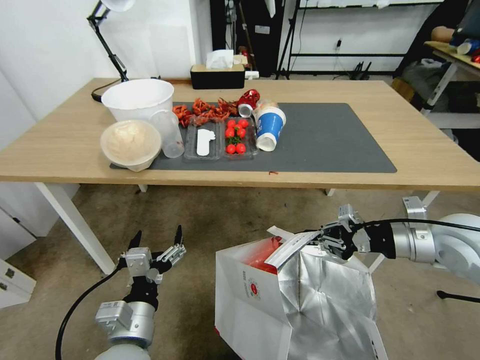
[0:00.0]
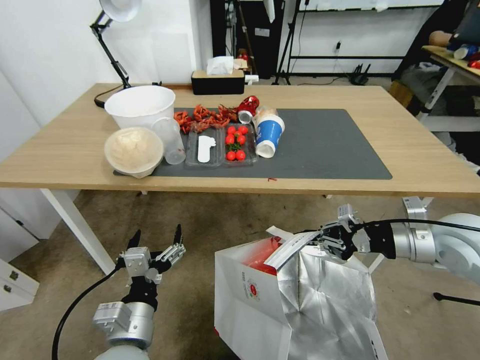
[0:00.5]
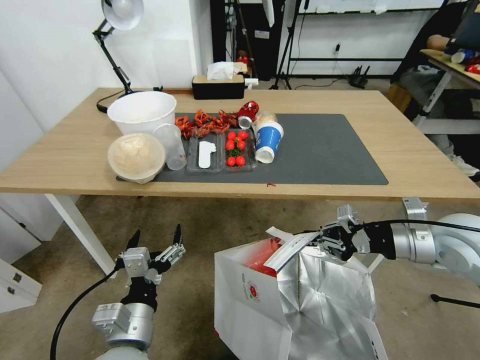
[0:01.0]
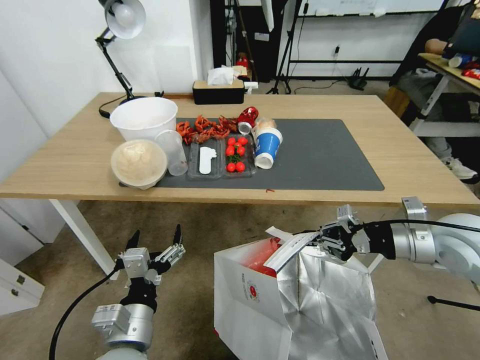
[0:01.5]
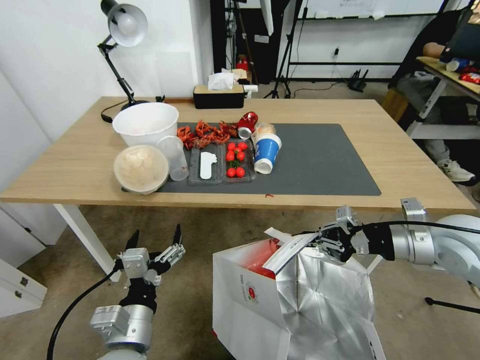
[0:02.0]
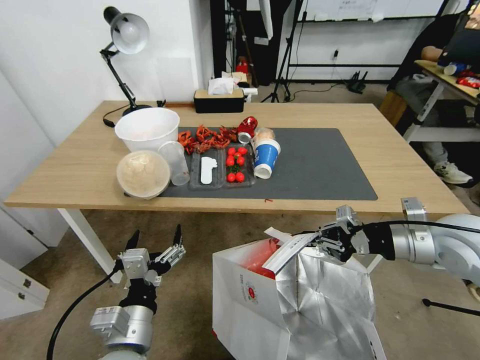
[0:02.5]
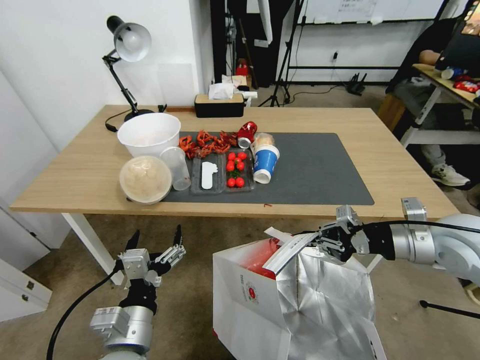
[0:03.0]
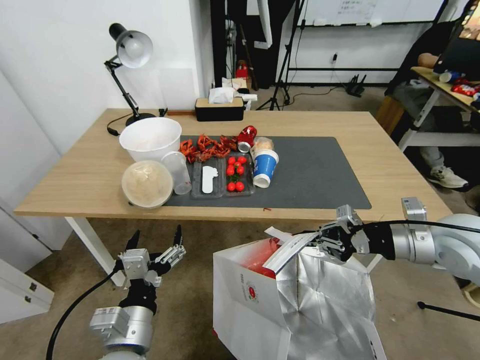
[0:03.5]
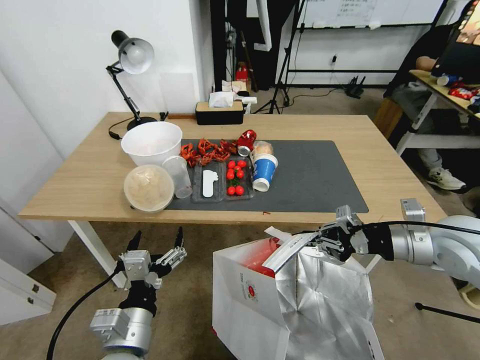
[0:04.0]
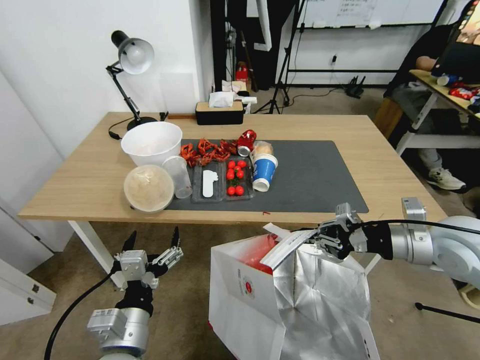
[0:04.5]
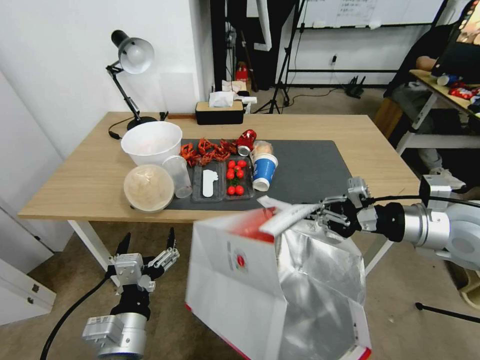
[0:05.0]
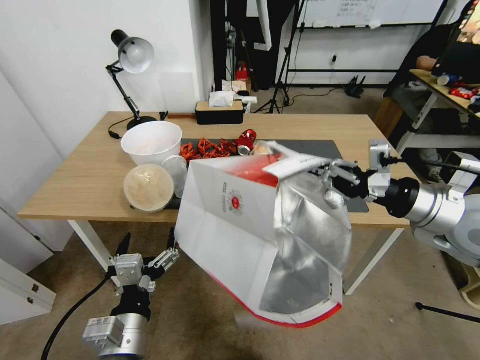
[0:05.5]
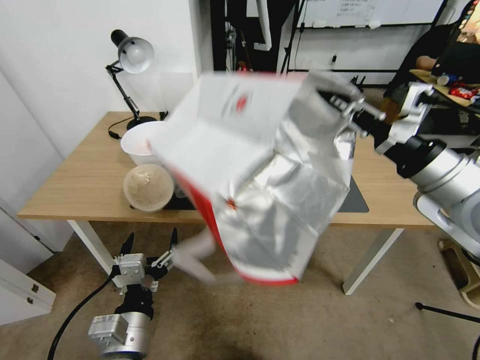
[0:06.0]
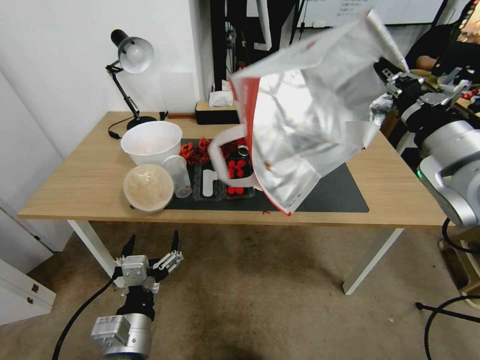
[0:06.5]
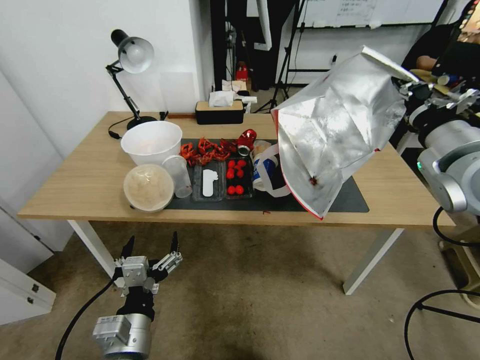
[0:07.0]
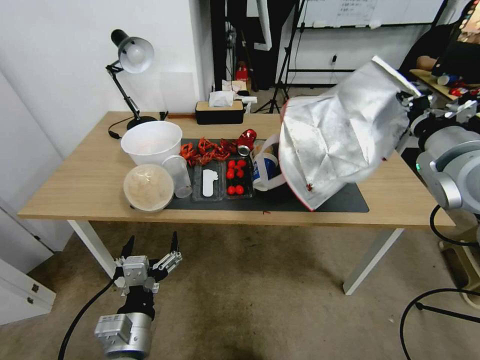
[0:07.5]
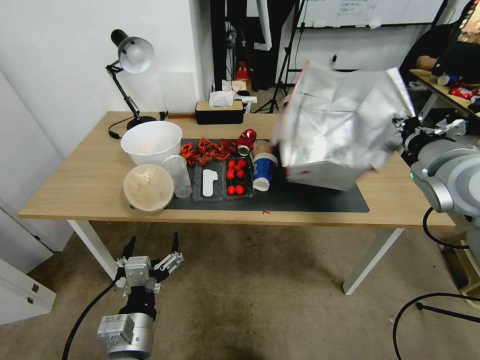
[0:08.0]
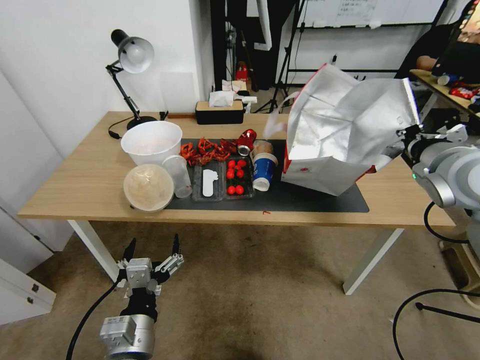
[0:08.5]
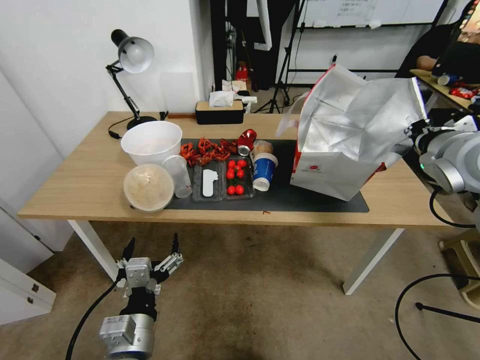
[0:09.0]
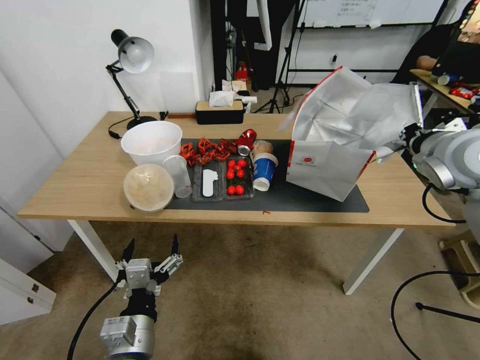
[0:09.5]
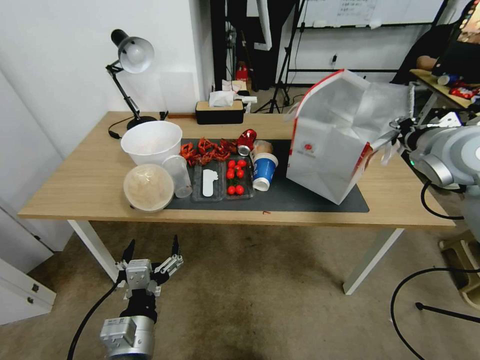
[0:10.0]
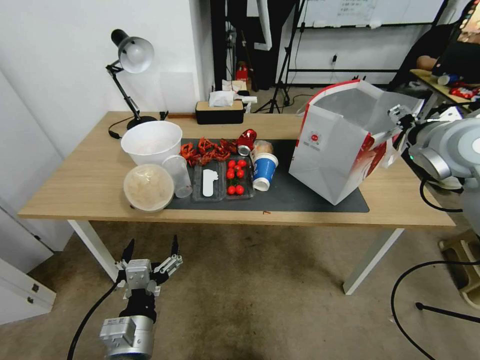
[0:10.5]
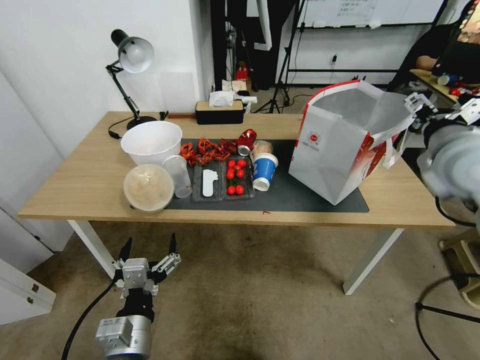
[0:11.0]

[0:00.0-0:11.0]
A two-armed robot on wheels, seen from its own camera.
Task of the whole recording: Pick up the food delivery bag from the floor and place it on the table.
0:03.5 to 0:05.5: The right gripper goes roughly 5 cm upward.
0:05.5 to 0:07.5: The right gripper is displaced upward by about 5 cm.
0:09.0 to 0:11.0: The right gripper opens up.

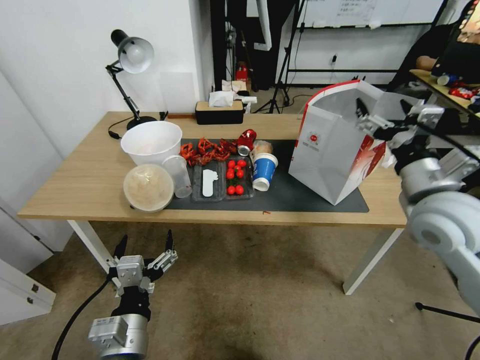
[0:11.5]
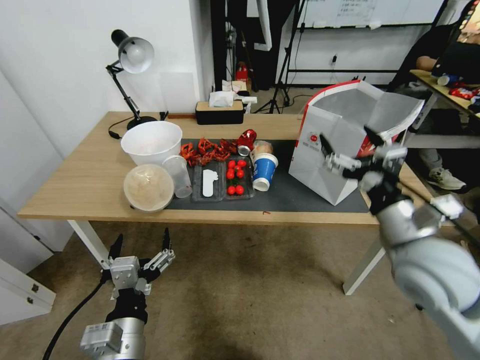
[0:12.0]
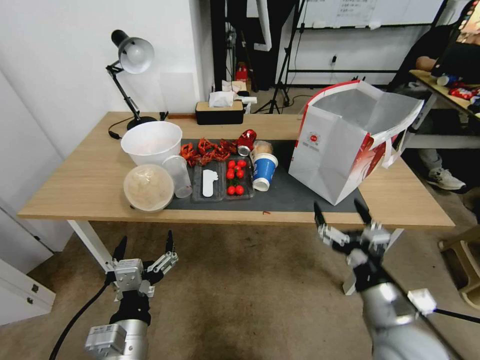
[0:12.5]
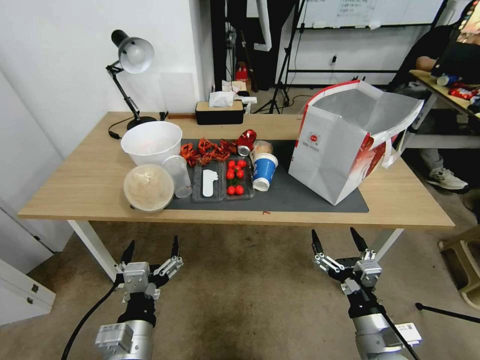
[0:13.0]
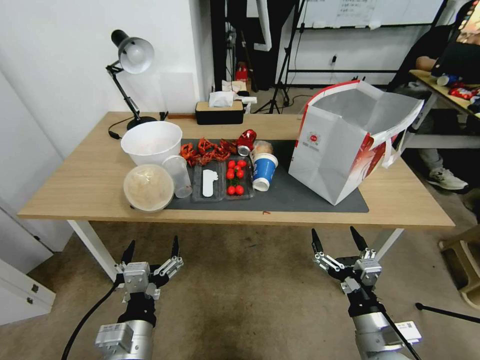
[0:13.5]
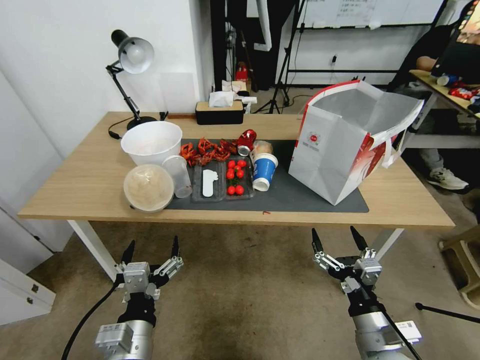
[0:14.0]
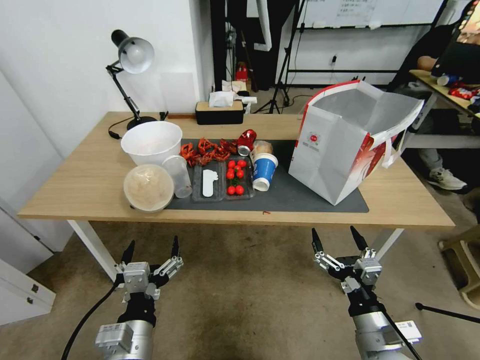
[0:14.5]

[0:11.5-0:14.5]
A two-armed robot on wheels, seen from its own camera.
Task of the whole recording: Pick up the food delivery bag from the floor and place it on the table.
0:11.5 to 0:13.0: The right gripper heads downward and backward, covering about 30 cm.
0:13.0 to 0:14.5: Both grippers stay put.

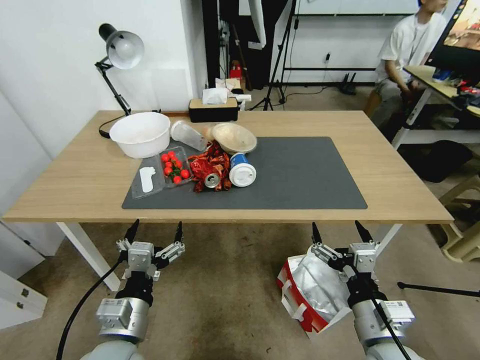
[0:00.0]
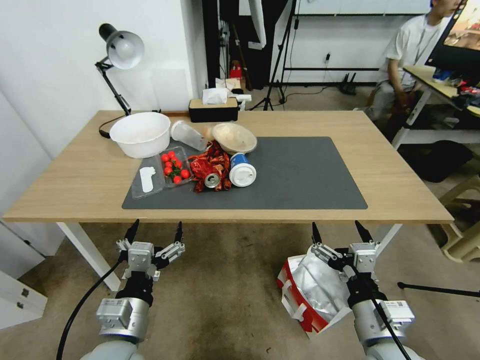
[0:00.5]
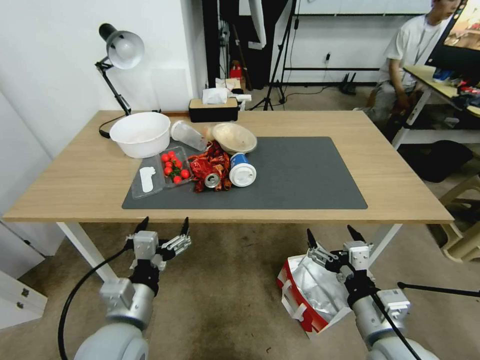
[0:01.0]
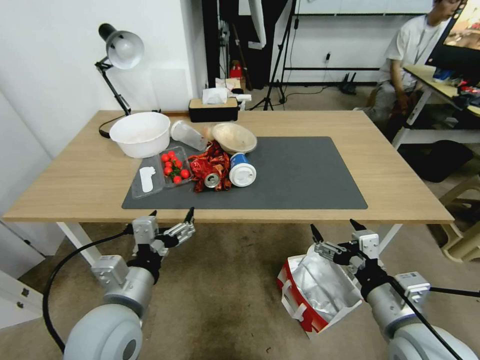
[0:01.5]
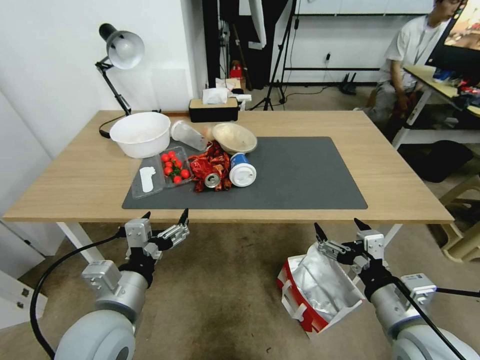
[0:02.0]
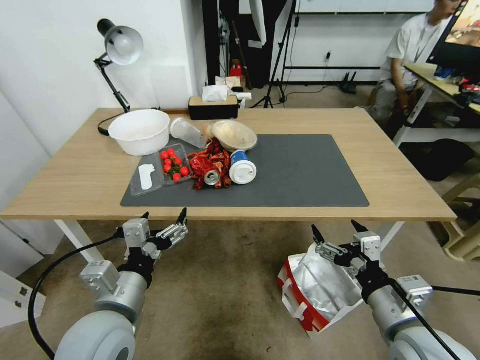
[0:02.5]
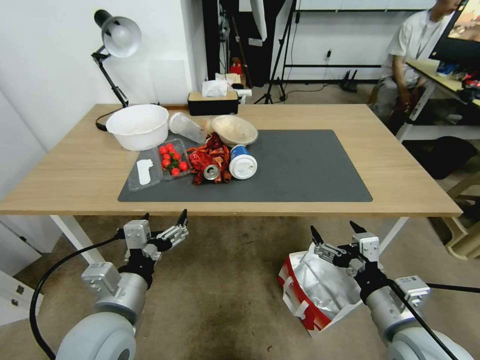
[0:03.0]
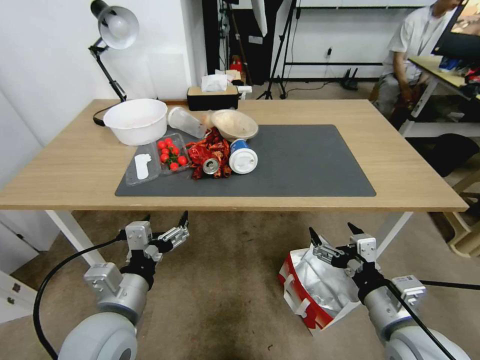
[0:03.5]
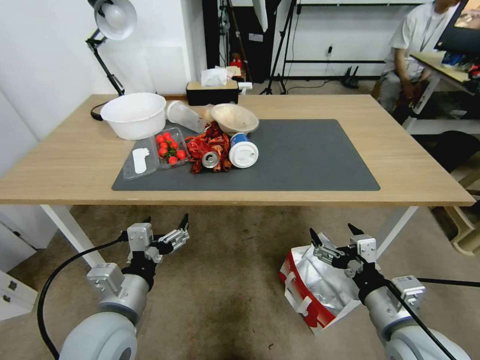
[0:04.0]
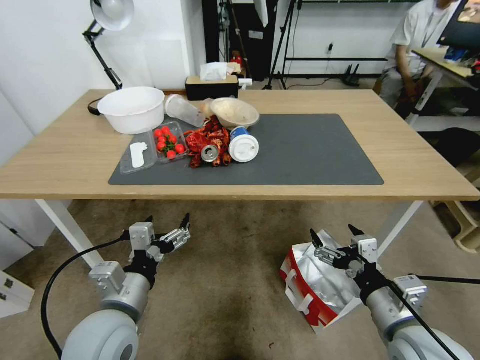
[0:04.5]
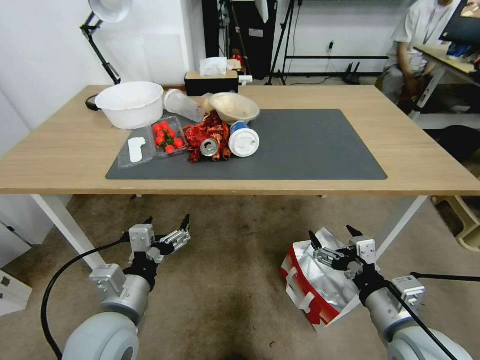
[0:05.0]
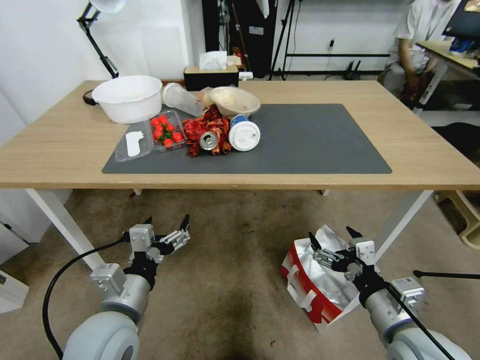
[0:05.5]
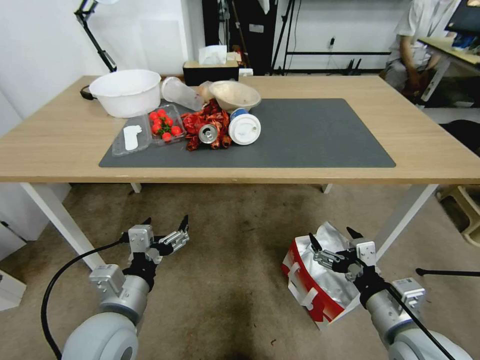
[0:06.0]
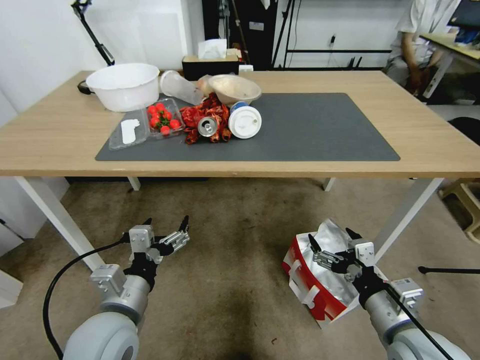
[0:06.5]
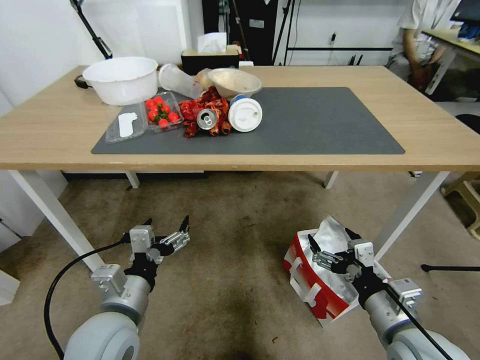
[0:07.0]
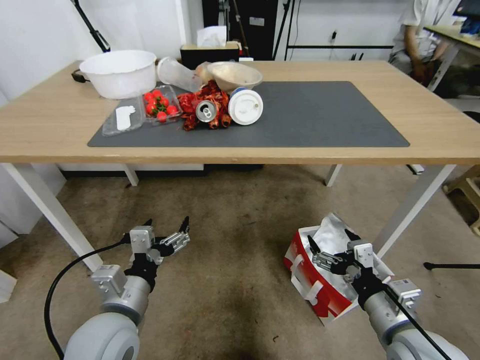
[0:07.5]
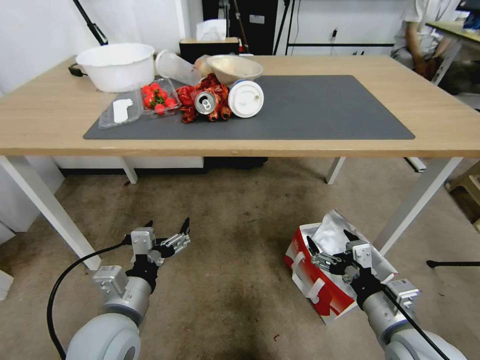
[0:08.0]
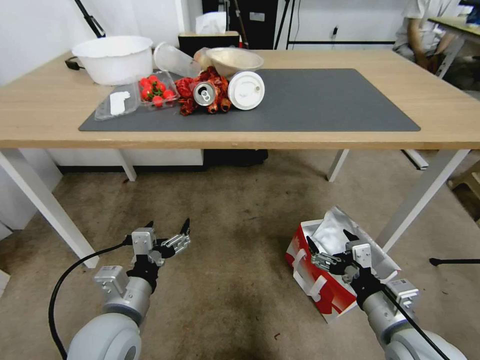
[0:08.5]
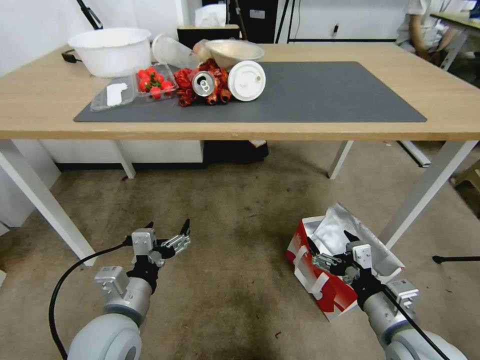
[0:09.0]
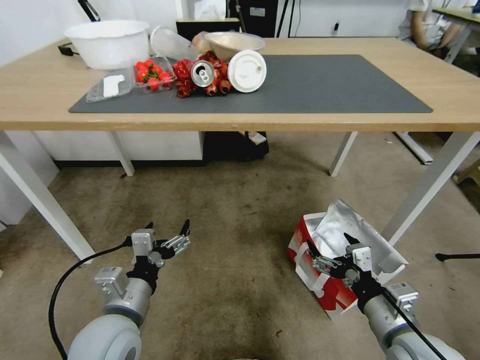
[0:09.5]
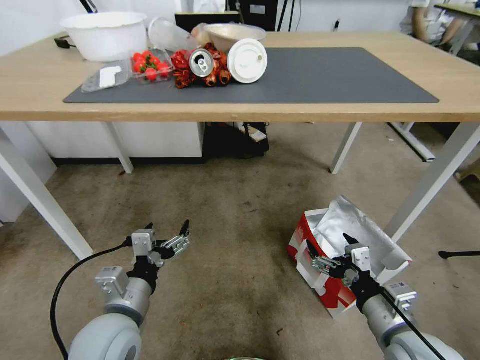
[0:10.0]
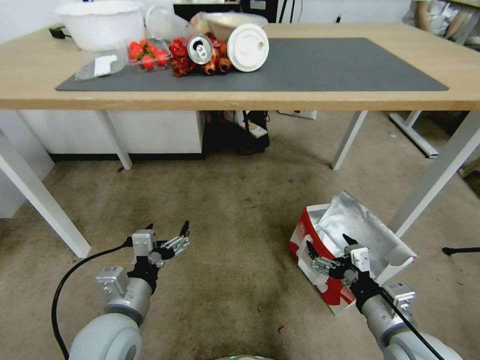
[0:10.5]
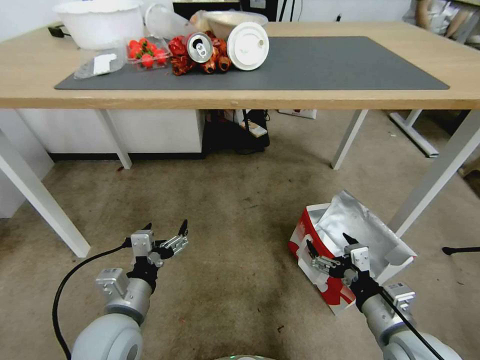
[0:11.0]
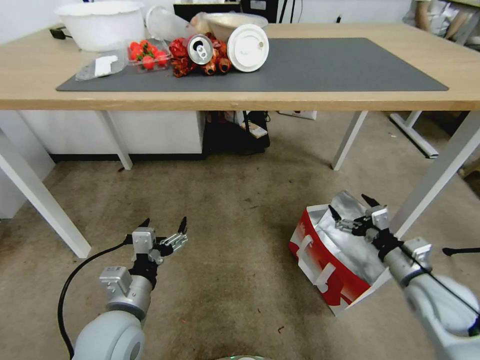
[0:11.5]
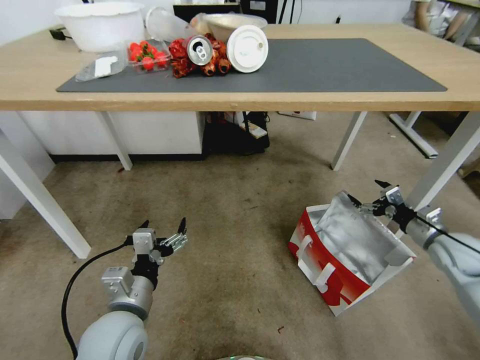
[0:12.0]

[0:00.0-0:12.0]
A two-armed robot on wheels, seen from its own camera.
Task of the whole recording: Pick up the food delivery bag from the floor and place it on the table.
0:10.0 to 0:12.0: The right gripper shifts approximately 30 cm to the right and forward.
